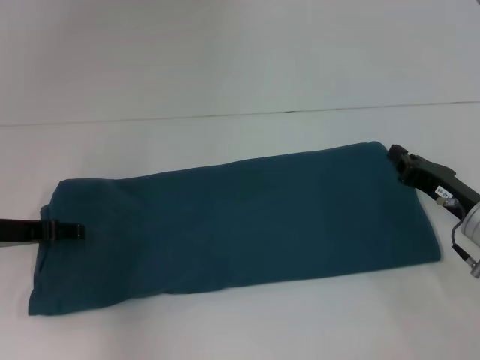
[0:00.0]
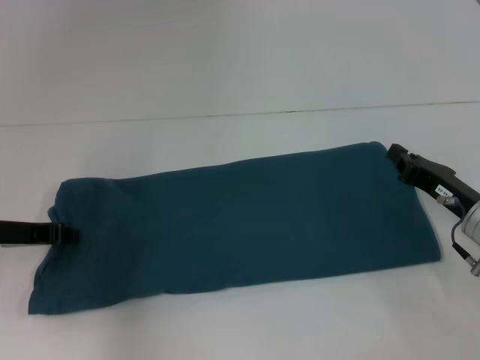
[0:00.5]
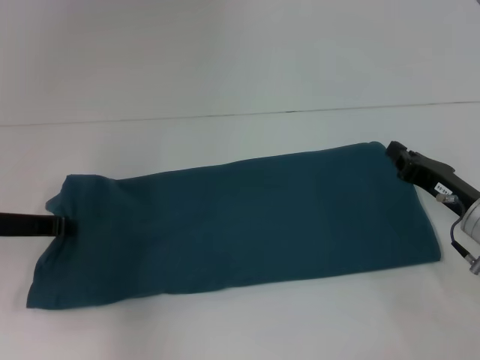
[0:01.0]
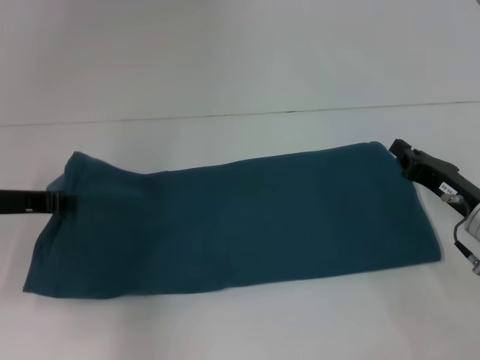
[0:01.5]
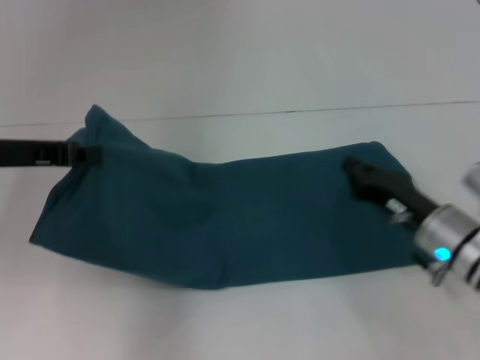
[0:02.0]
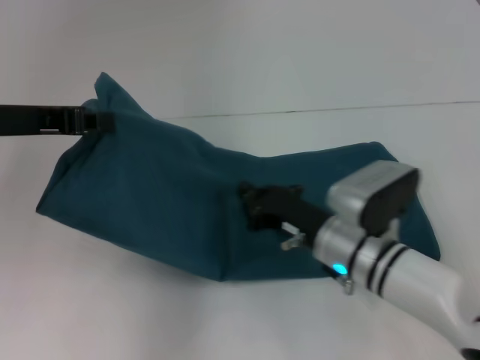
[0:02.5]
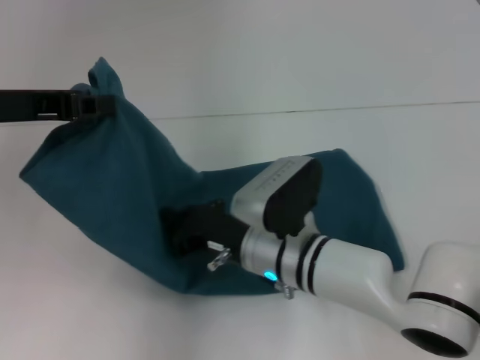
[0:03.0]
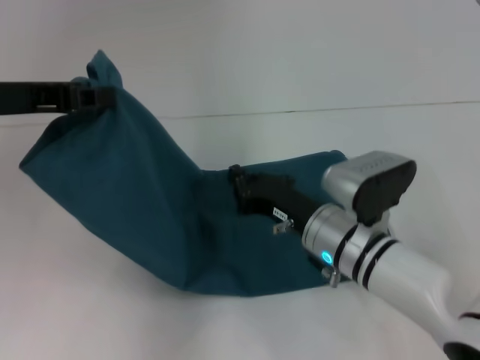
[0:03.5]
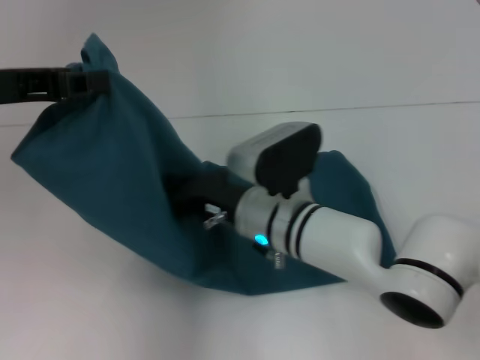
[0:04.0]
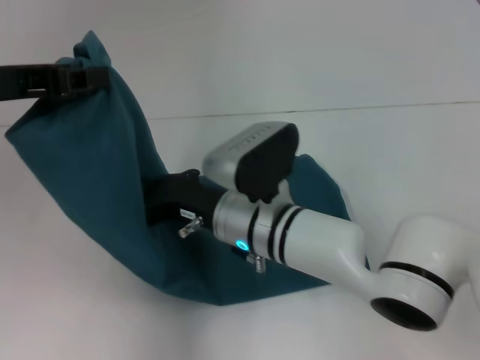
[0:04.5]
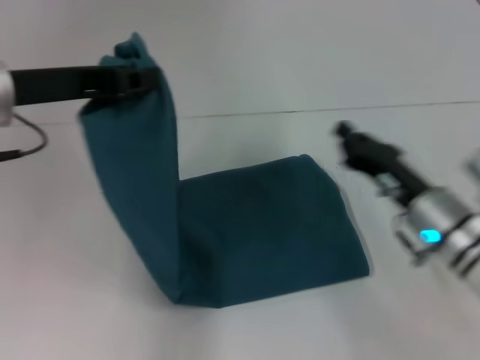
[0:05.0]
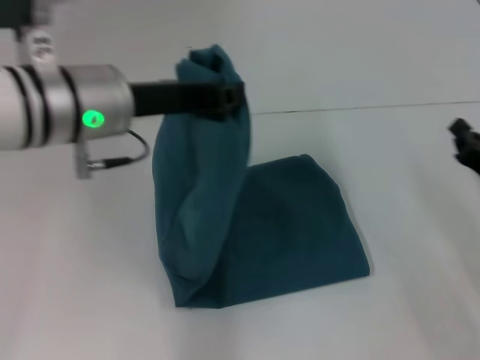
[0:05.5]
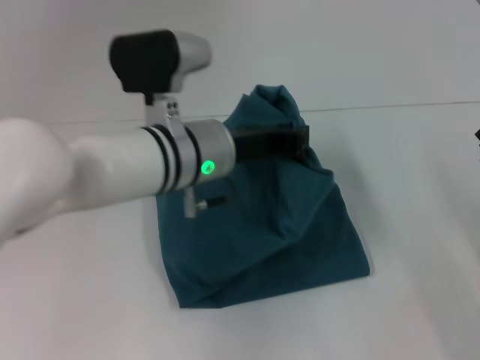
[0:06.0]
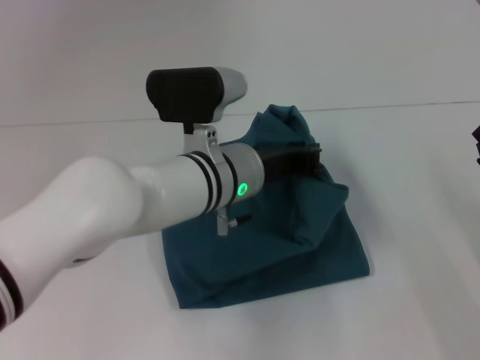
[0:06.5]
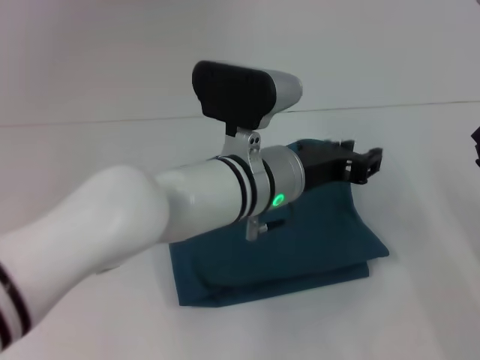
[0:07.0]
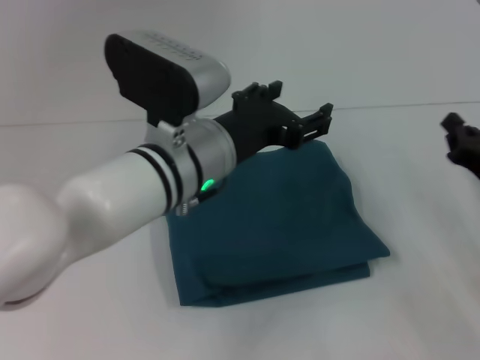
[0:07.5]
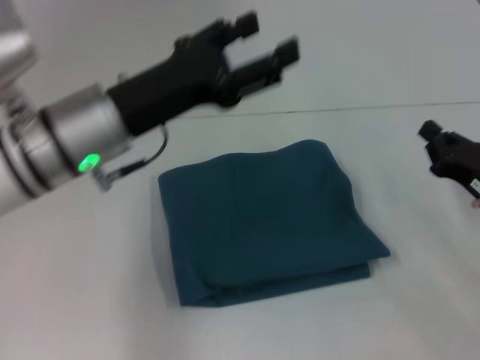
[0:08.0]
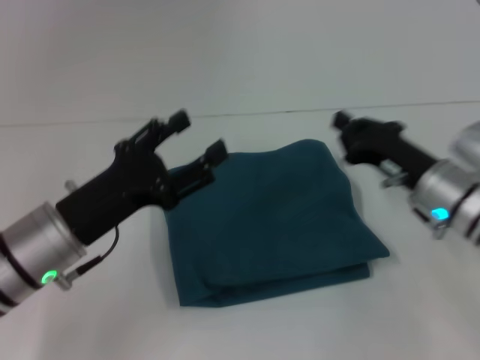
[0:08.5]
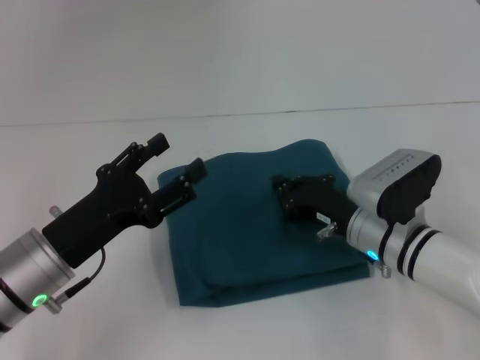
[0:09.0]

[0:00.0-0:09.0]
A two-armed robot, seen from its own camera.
Step, 0:00.0 to 0:04.5: Press the middle of the clothes with your right hand.
Step, 0:05.0 to 0:07.0: Fold the clothes to the left.
0:00.0 to 0:02.0: The left gripper travels upward by roughly 10 cm, and closes.
0:02.0 to 0:04.5: The left gripper is displaced upward by some 5 cm, while the right gripper swings left and right, roughly 20 cm each way, with 2 reversals.
0:04.5 to 0:07.0: The right gripper travels to the right by roughly 30 cm. The left gripper heads to the right and downward, covering roughly 30 cm.
0:07.0 to 0:09.0: Both grippers travel together to the left, some 20 cm. The left gripper opens its fingers.

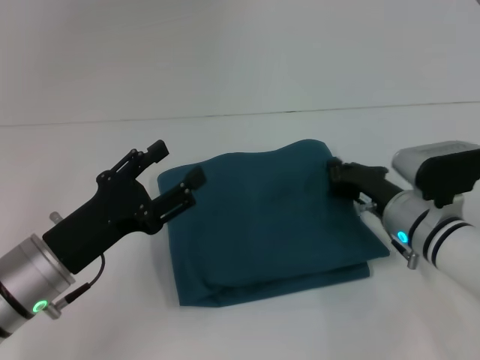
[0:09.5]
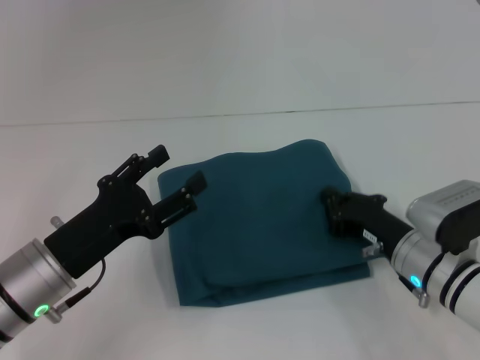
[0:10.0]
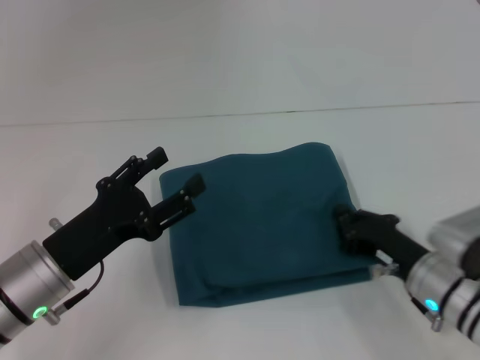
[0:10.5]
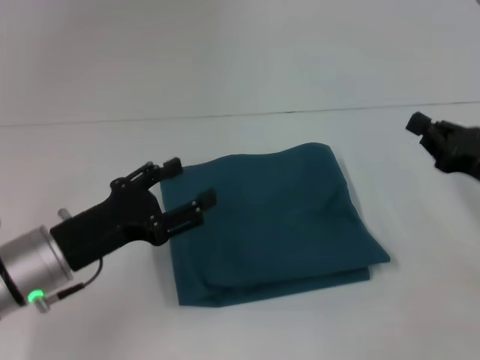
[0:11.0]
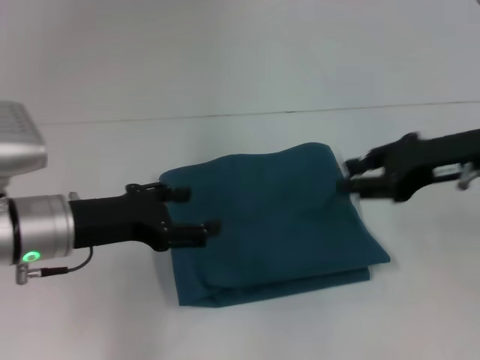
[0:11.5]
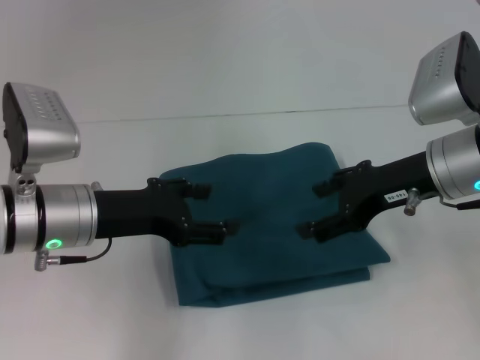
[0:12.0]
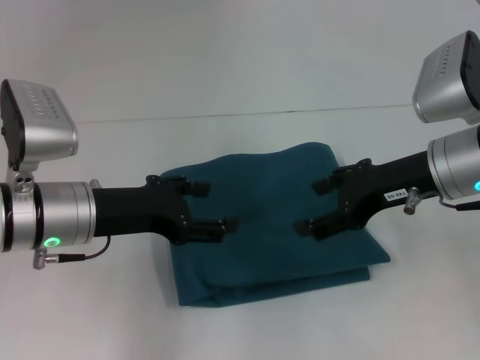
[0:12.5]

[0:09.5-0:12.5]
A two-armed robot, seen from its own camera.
0:09.5 to 0:11.0: The right gripper is displaced to the right and upward by about 15 cm.
0:11.0 to 0:12.5: The right gripper is displaced to the left and upward by some 15 cm, and opens its fingers. The left gripper travels upward by approximately 5 cm.

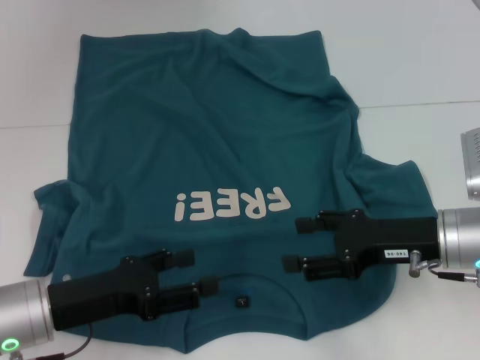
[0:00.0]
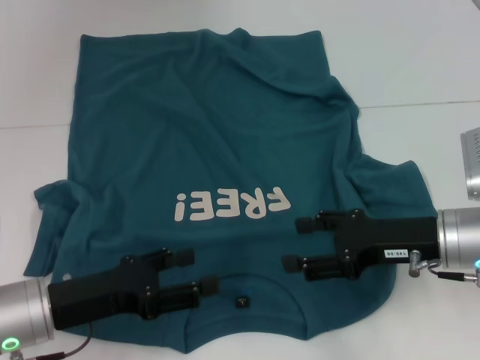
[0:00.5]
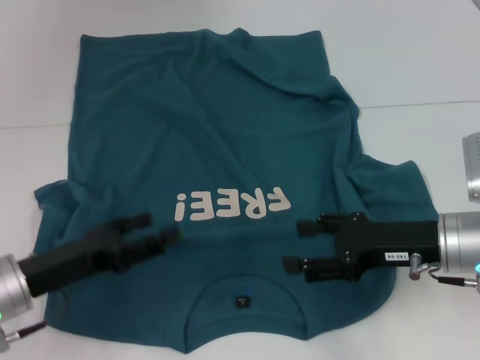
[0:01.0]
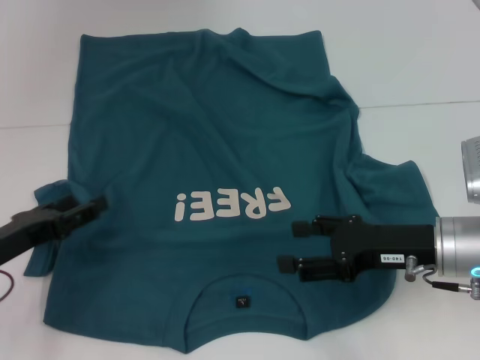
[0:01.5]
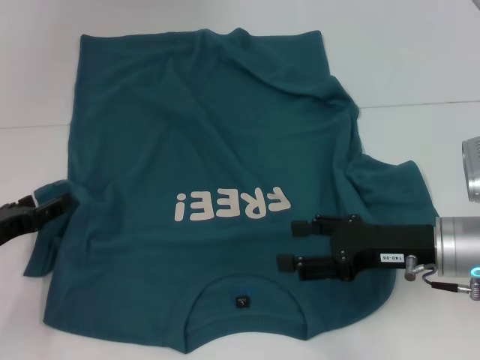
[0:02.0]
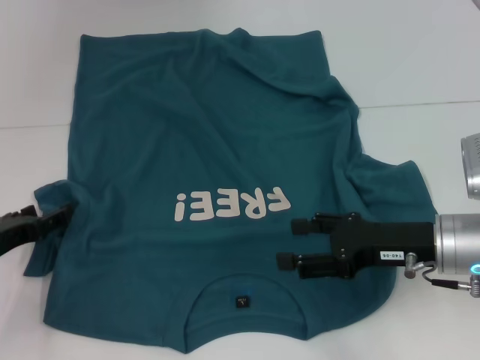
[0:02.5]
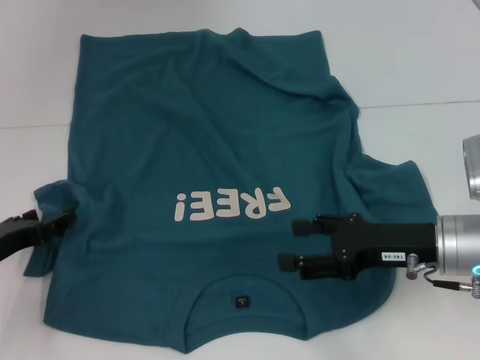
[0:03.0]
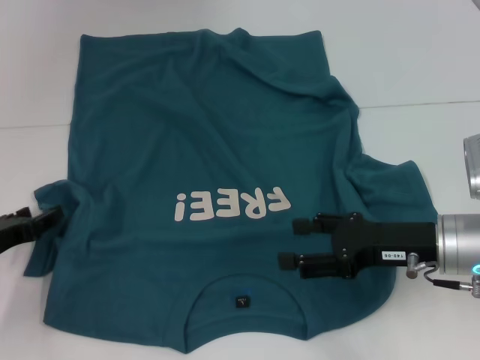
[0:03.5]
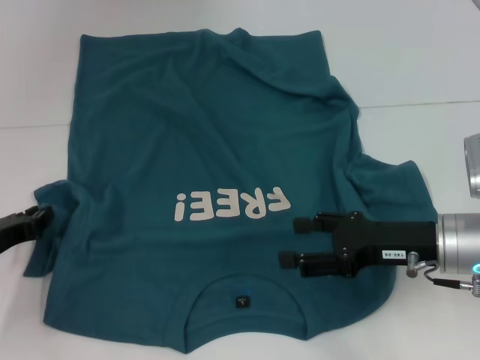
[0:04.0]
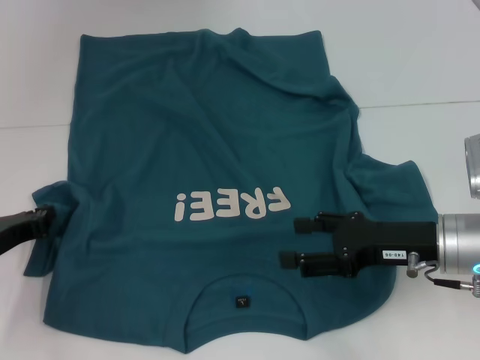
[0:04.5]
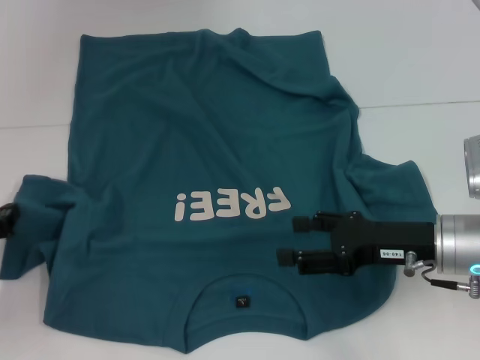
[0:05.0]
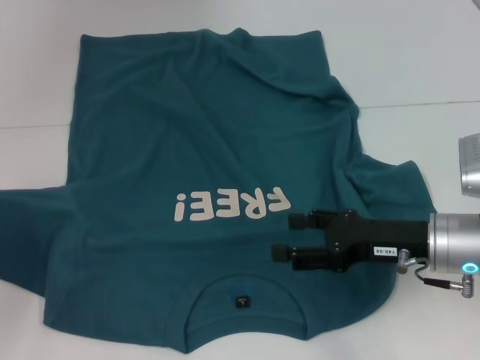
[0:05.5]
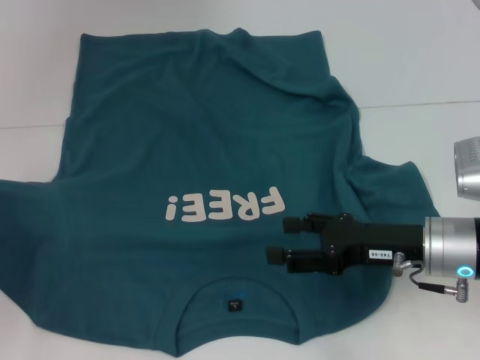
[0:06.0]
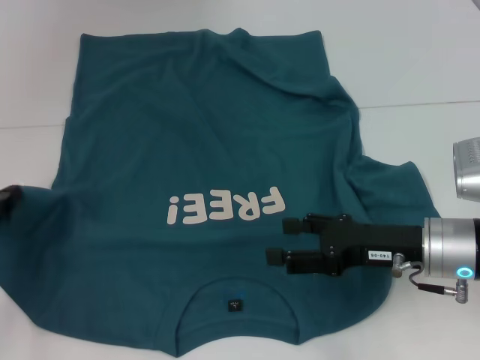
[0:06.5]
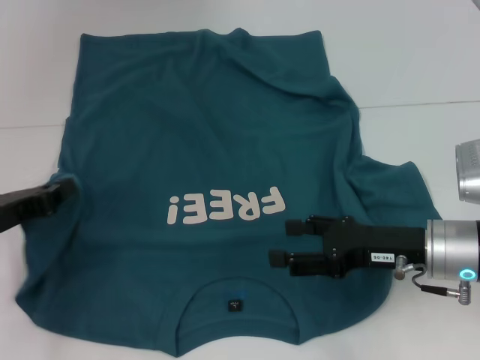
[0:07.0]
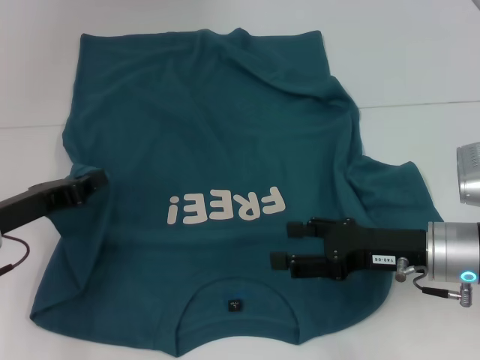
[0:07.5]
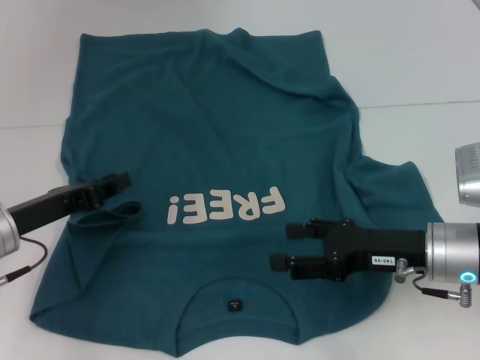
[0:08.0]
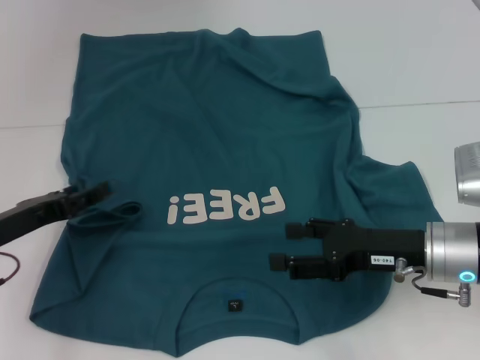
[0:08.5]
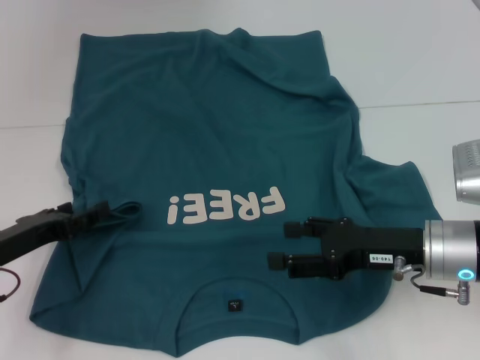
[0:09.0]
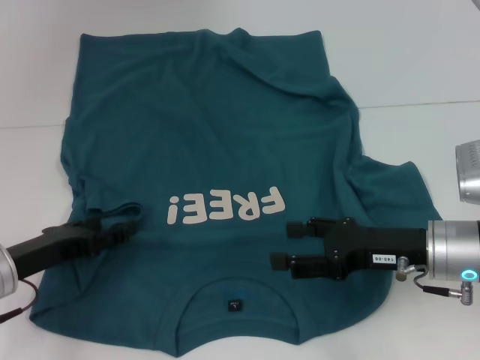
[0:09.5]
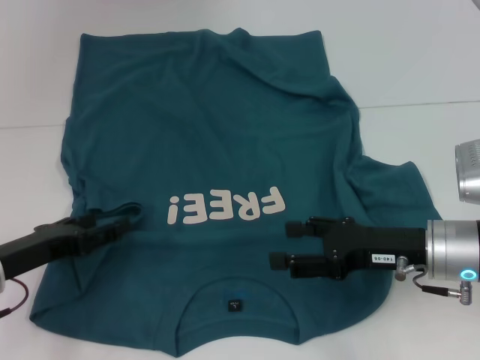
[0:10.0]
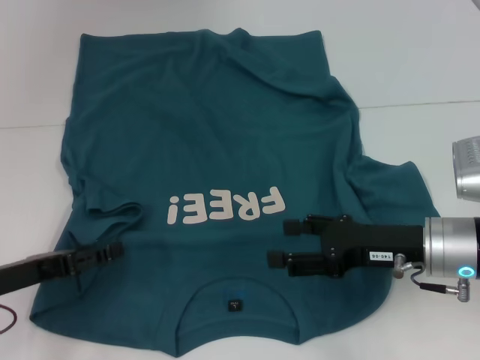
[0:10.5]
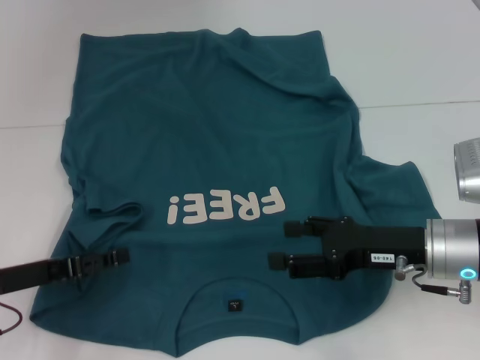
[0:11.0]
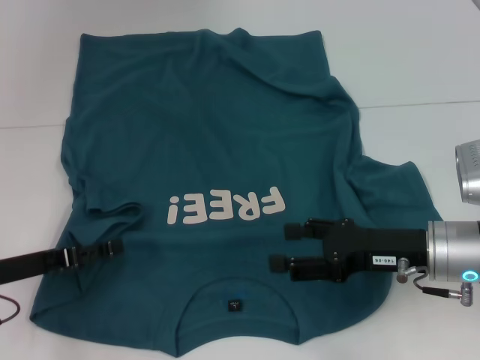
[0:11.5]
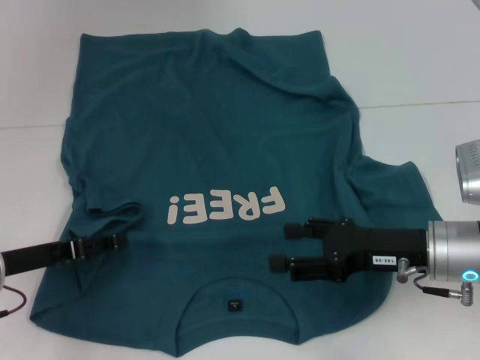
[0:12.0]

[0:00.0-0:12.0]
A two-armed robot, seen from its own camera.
0:00.0 to 0:02.0: The left gripper shifts some 10 cm to the left.
0:02.0 to 0:04.0: The left gripper closes its fingers.
0:04.0 to 0:06.0: The left gripper goes roughly 5 cm to the left, and closes.
0:06.0 to 0:08.0: The left gripper is displaced to the right by approximately 10 cm.
0:08.0 to 0:10.0: The left gripper opens.
0:10.0 to 0:12.0: The grippers move only a little.

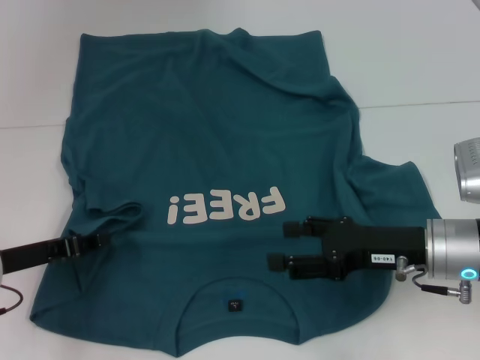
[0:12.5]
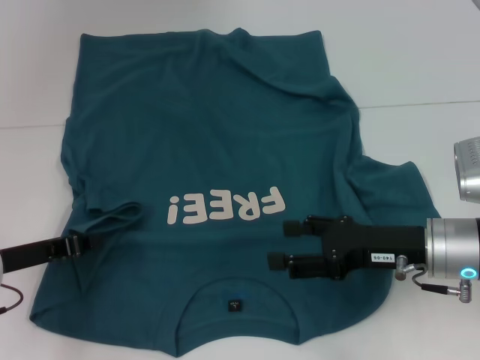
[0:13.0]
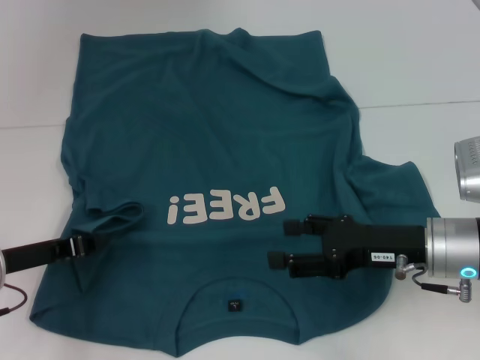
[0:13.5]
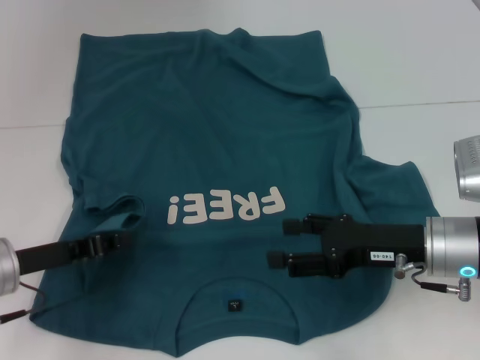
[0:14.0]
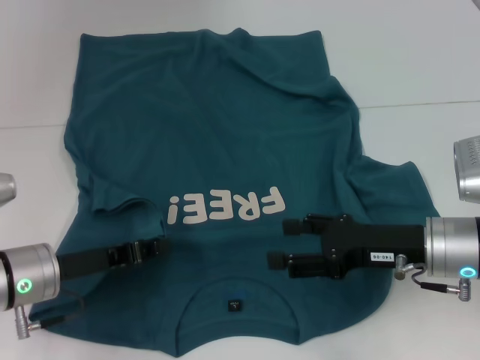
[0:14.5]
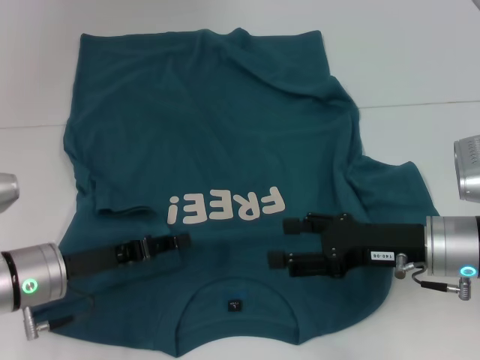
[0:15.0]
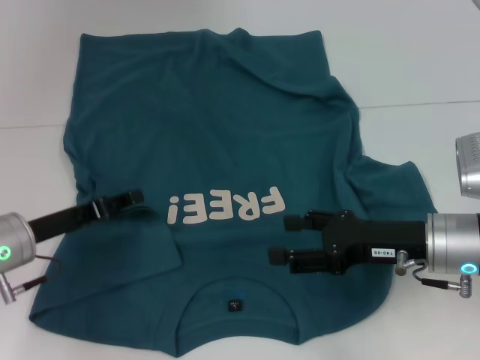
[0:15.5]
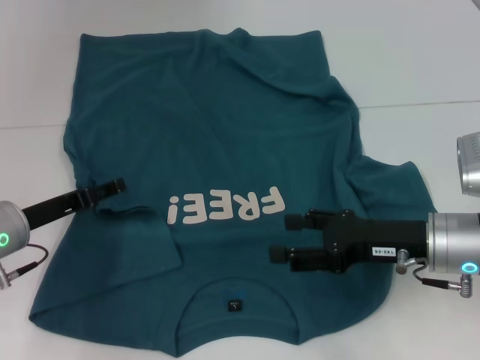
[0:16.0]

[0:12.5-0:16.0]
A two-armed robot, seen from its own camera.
Step, 0:12.5 to 0:15.0: Fold the bottom left sleeve with your left hand.
0:12.5 to 0:14.5: The left gripper goes approximately 5 cm to the right, and closes its fingers.
0:14.5 to 0:16.0: The left gripper opens.
